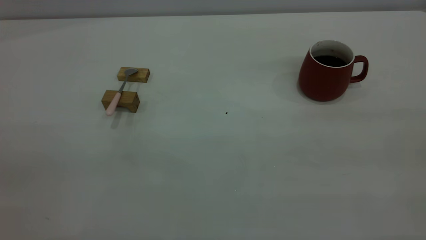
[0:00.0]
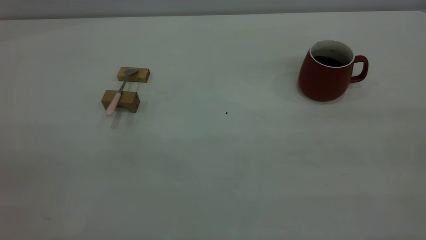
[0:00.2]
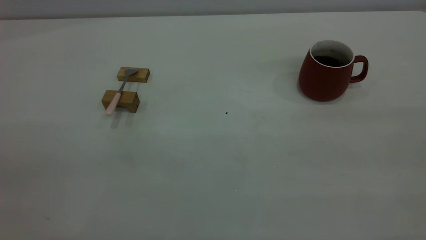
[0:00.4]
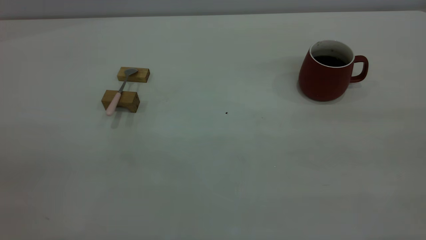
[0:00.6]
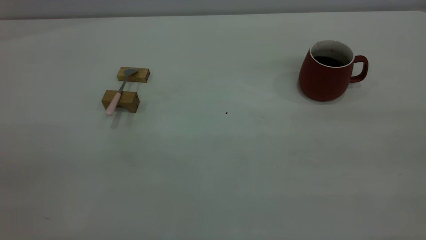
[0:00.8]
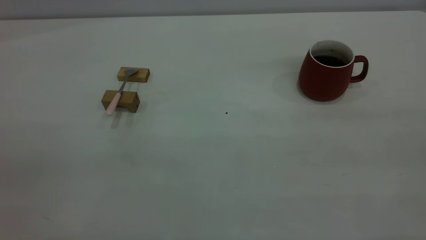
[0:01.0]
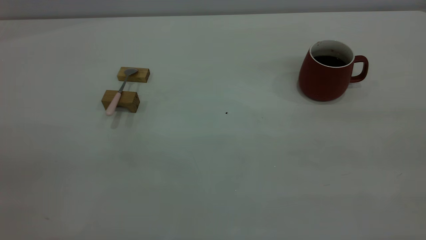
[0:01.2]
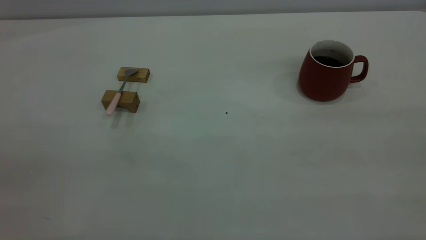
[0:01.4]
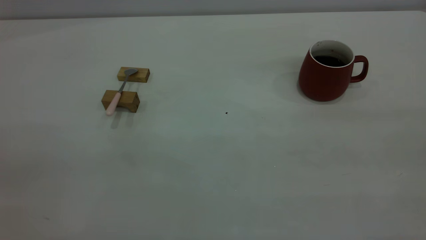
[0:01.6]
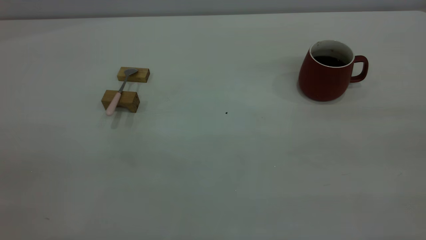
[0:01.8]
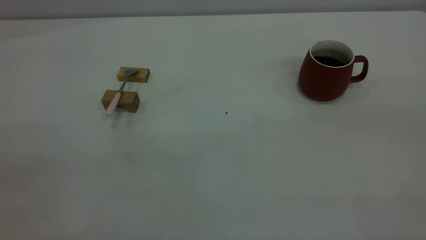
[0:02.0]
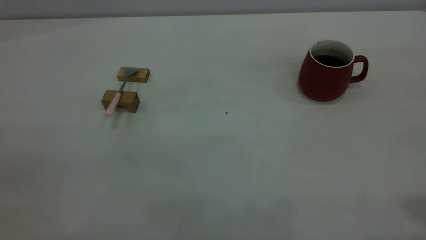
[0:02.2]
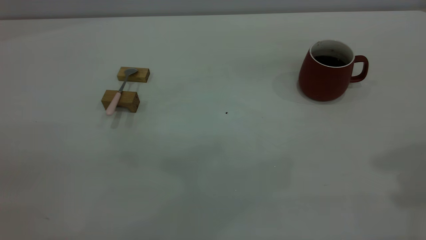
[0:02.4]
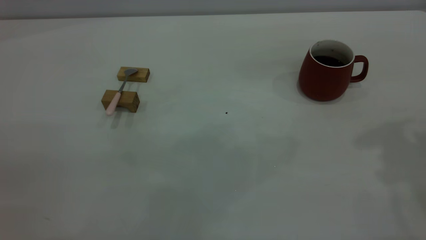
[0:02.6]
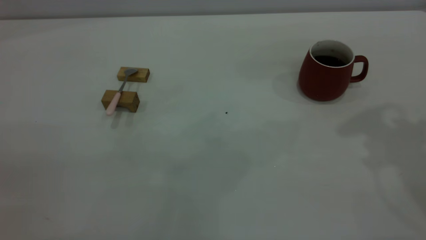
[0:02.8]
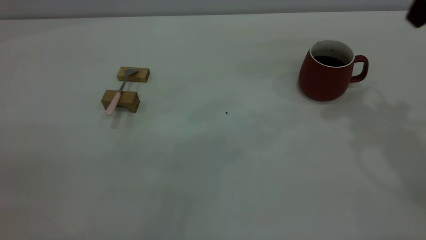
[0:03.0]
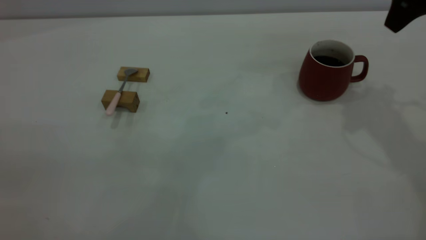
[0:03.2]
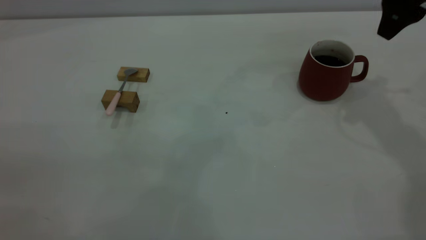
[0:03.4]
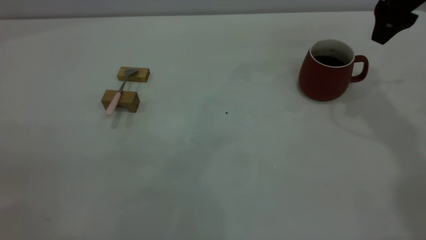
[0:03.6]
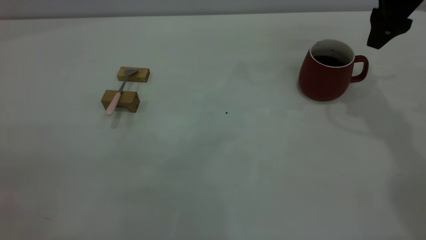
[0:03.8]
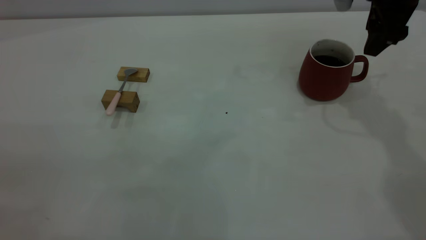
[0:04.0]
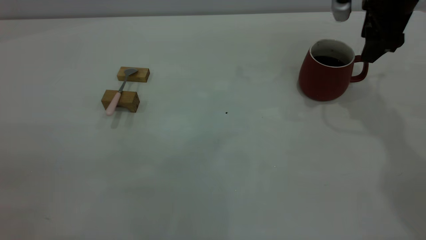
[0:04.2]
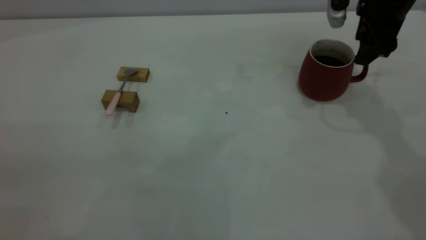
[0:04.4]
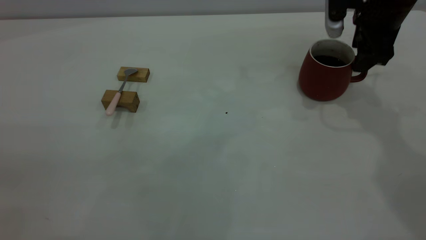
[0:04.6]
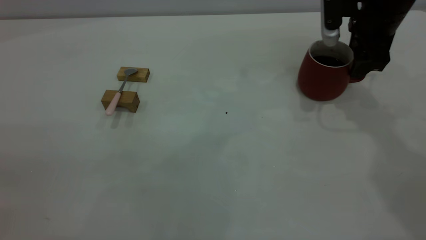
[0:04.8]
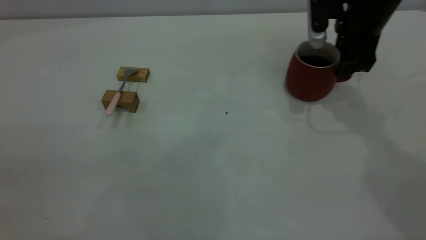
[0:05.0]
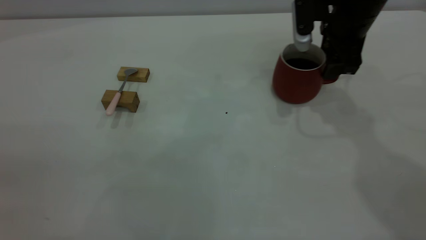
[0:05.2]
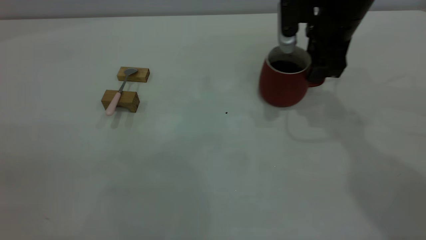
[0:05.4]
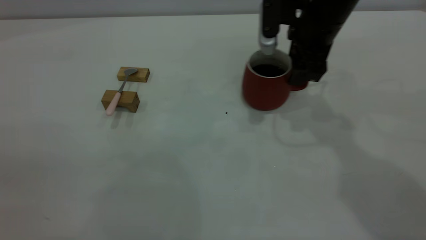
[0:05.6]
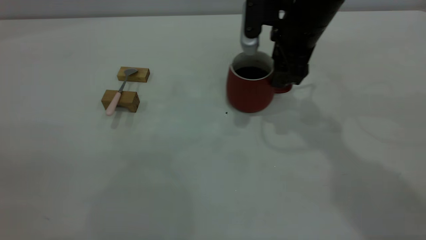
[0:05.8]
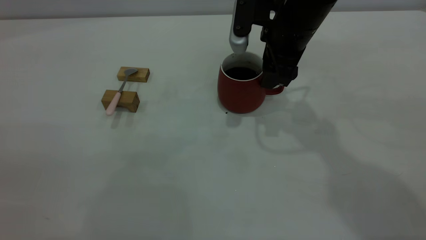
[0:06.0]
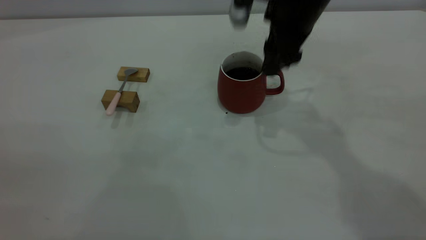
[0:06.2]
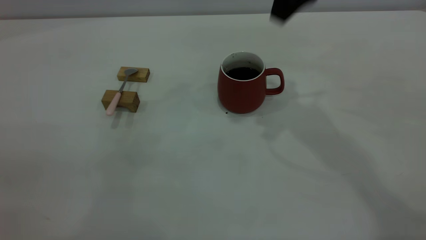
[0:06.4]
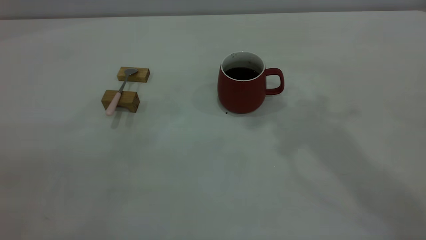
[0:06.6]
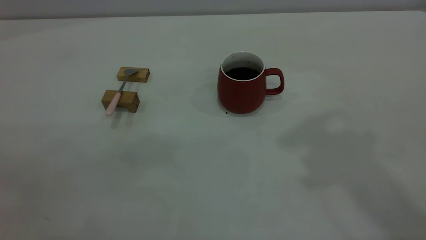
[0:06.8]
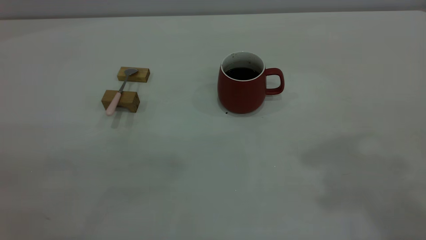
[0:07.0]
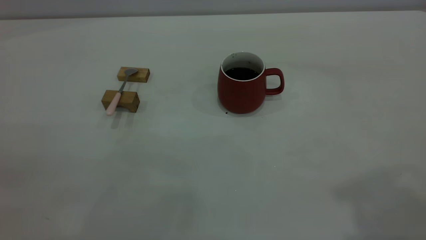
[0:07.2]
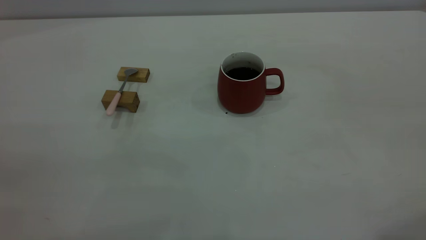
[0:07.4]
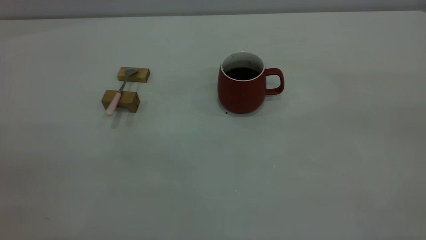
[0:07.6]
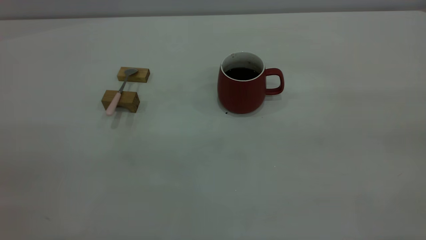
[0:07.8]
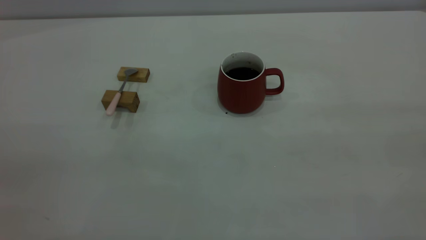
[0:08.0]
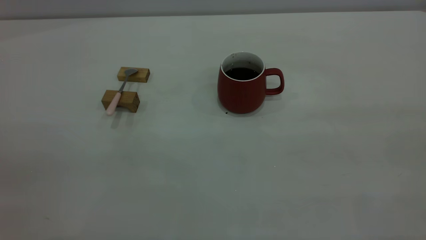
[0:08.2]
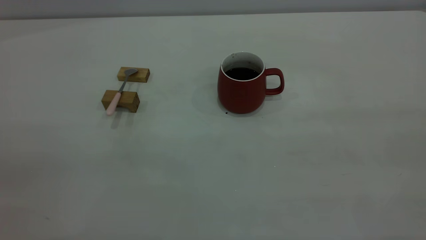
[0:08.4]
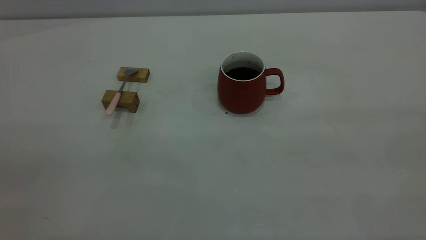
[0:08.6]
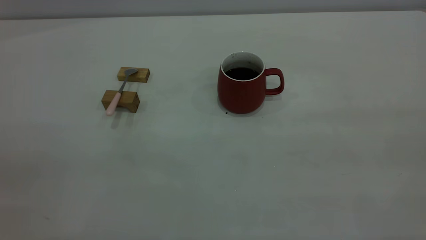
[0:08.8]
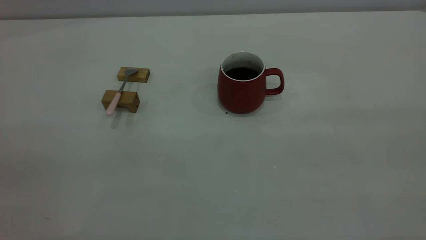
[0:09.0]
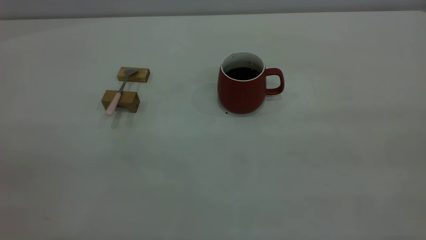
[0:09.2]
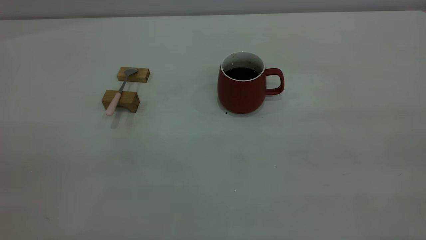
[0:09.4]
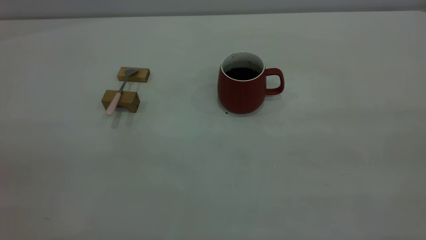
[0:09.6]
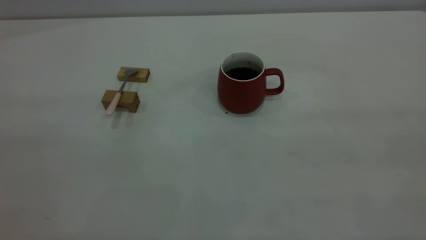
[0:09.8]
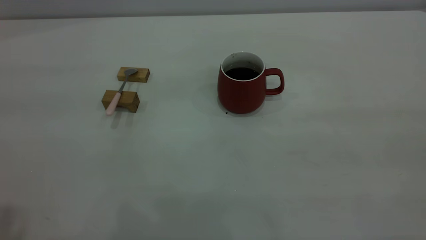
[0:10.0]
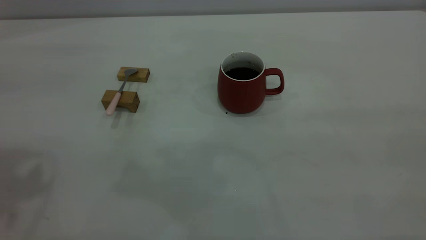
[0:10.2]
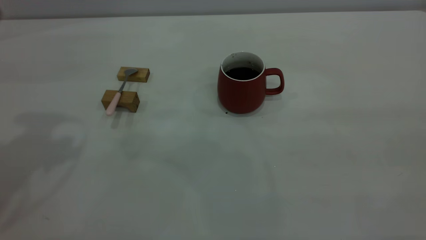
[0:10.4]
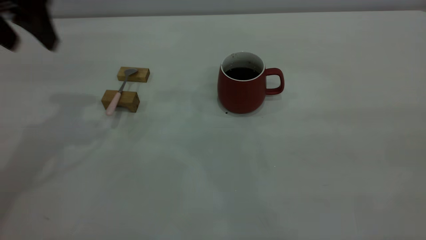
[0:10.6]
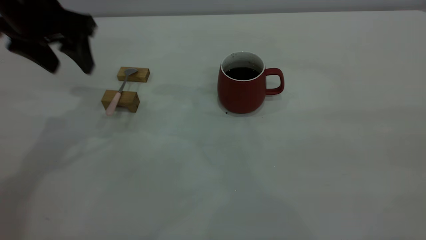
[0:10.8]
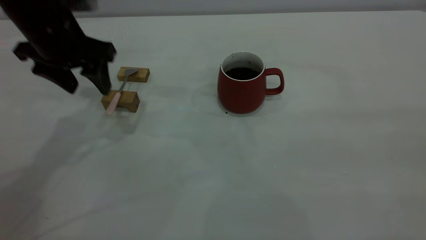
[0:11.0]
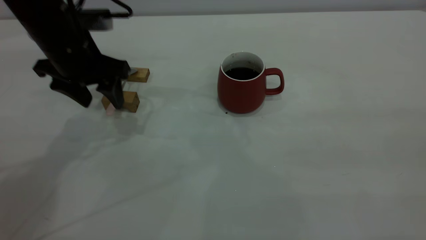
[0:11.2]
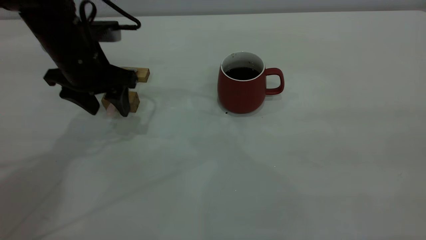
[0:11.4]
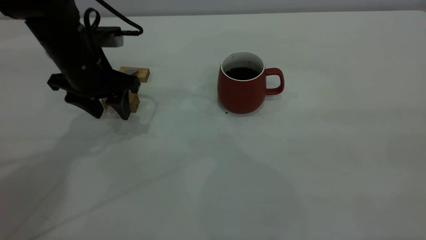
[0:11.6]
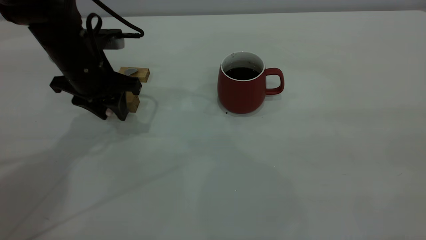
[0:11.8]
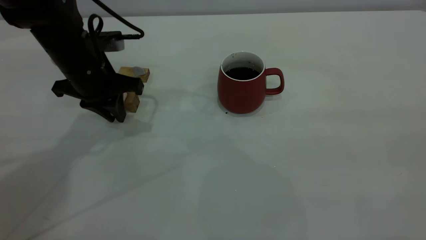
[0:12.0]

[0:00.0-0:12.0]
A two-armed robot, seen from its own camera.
Step, 0:00.0 to 0:06.2: Move the cup with coffee to the center of view.
0:00.0 to 0:01.6: Neither gripper changes place.
0:03.0 to 0:04.4: The right gripper shifts roughly 15 cm downward and forward.
0:04.4 to 0:06.0: The right gripper travels to the left by about 15 cm.
0:06.0 to 0:07.6: The right gripper is displaced backward, upward and to the right by approximately 50 cm.
0:10.4 to 0:12.0: The left gripper moves downward, roughly 20 cm, and closes.

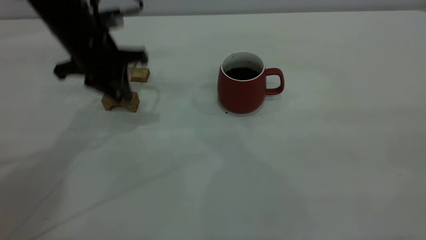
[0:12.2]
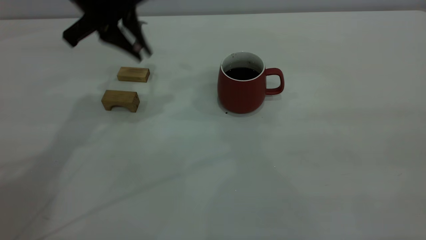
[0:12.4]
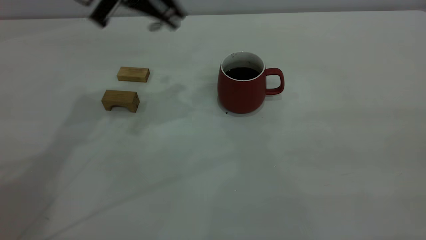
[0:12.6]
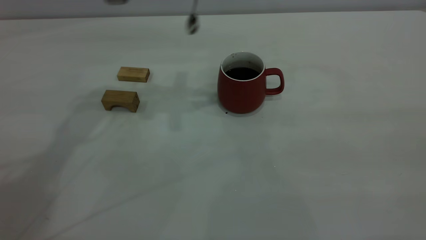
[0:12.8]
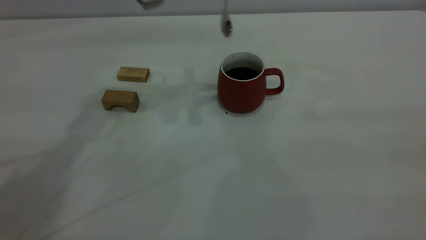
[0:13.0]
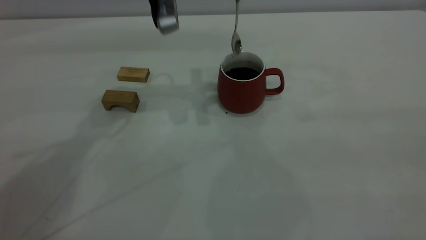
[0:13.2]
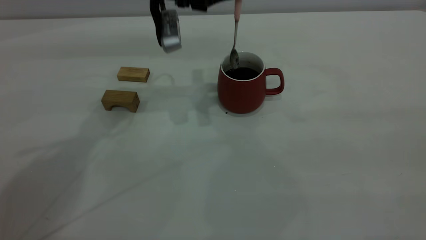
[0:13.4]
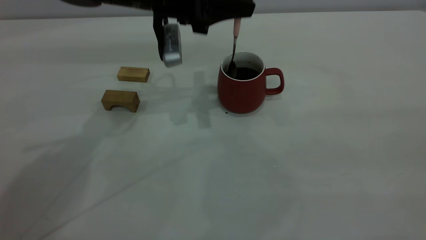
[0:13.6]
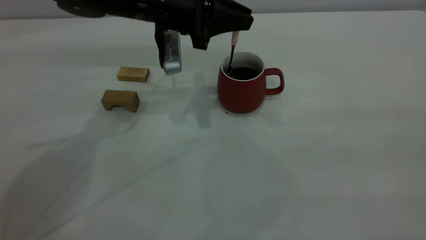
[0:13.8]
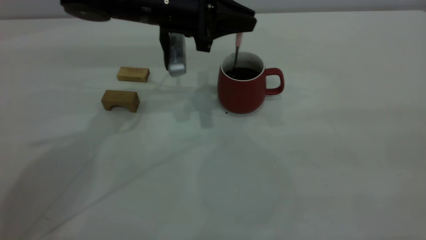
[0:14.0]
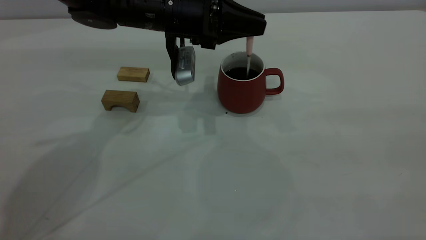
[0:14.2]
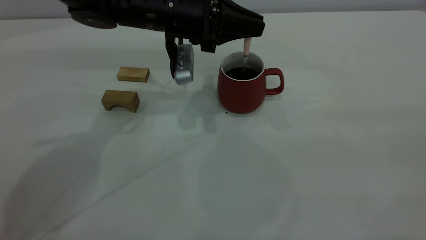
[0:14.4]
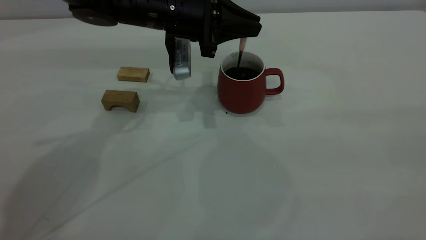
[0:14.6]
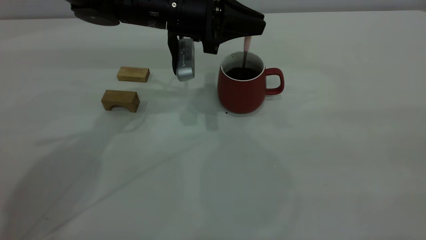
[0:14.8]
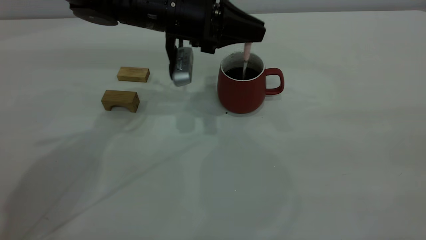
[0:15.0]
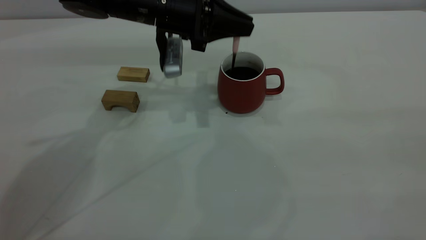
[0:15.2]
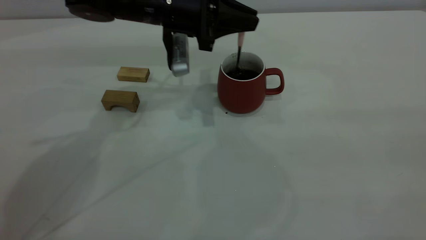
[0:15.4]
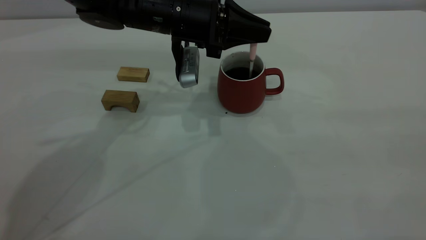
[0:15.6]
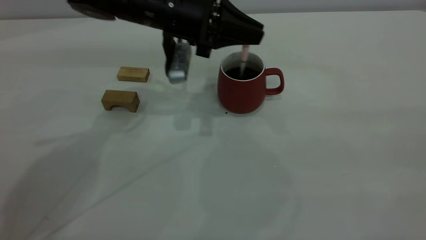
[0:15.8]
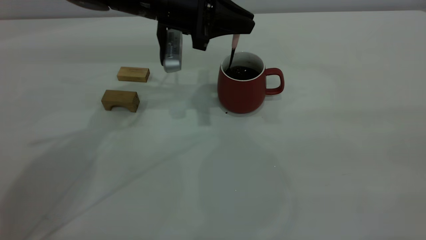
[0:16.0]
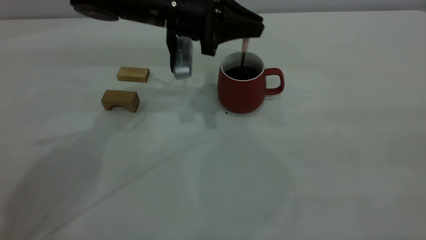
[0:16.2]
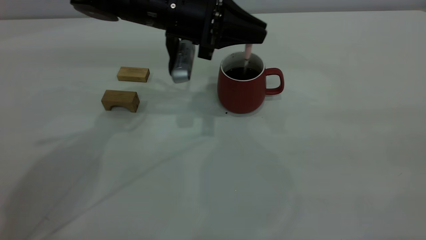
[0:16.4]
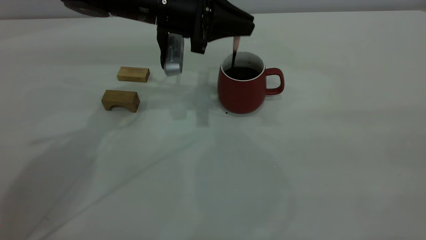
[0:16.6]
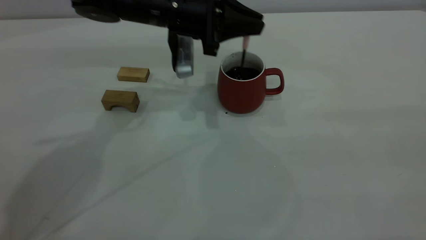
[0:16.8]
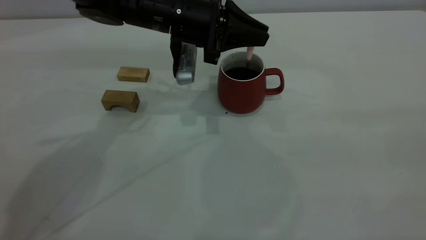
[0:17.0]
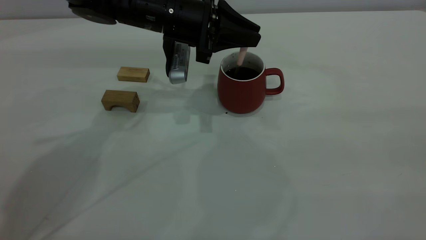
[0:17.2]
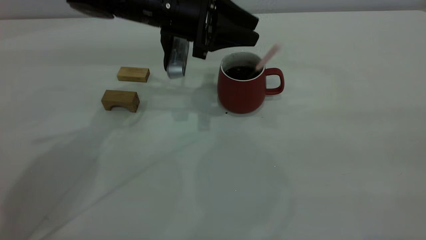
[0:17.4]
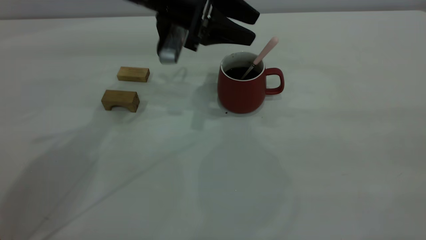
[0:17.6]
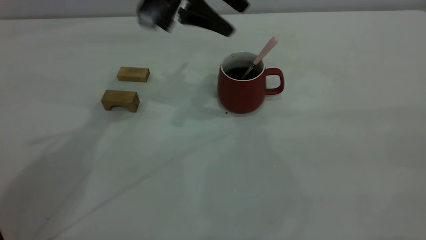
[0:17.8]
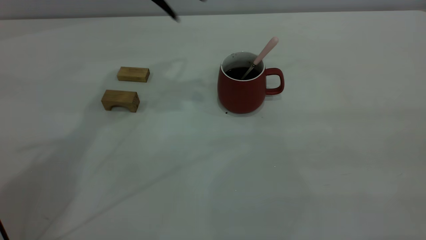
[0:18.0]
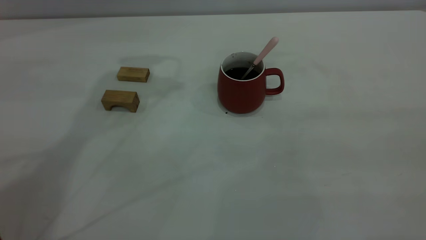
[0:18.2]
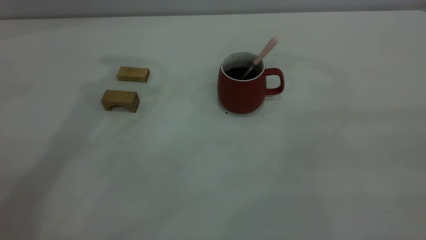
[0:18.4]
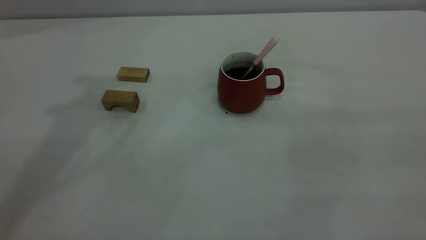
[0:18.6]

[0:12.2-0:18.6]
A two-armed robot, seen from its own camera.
Step, 0:12.4 to 0:17.6: Stir the coffee in the cup.
0:12.2 to 0:13.8: The left gripper goes some 10 cm to the right, and travels upward and back again, about 10 cm each way.
0:13.8 to 0:17.0: There are only small adjustments of the grippers.
0:17.0 to 0:18.6: The left gripper goes approximately 35 cm upward and to the left, and opens its fingers.
